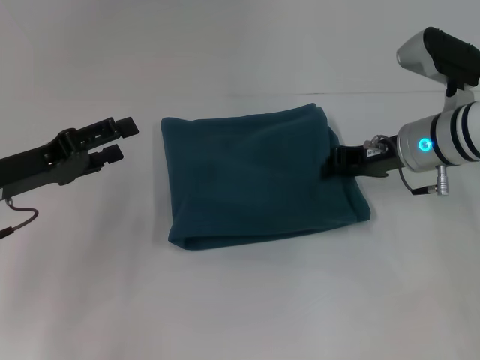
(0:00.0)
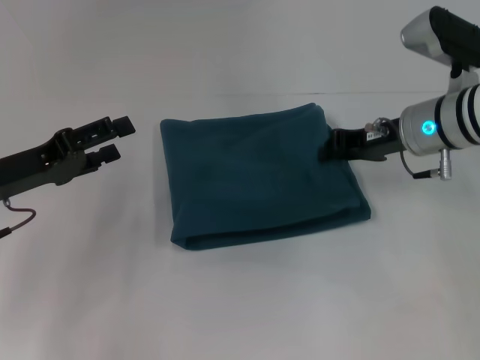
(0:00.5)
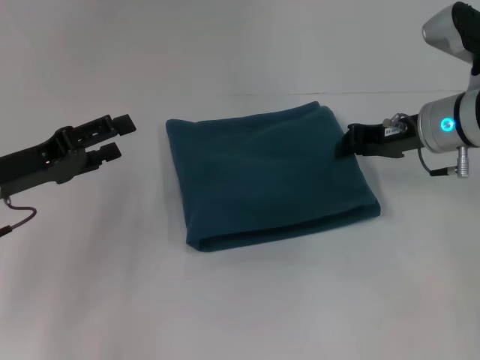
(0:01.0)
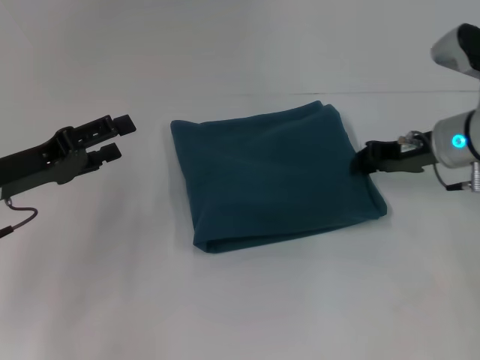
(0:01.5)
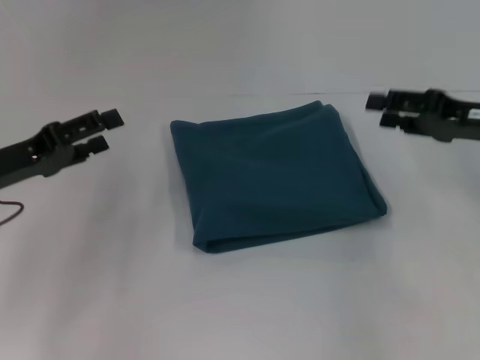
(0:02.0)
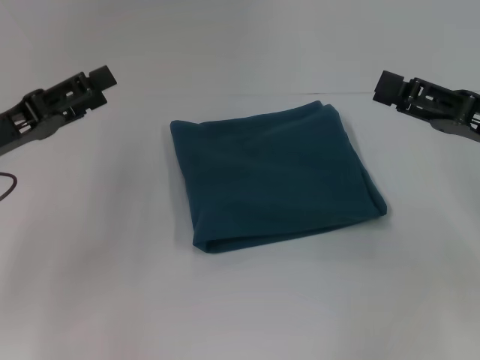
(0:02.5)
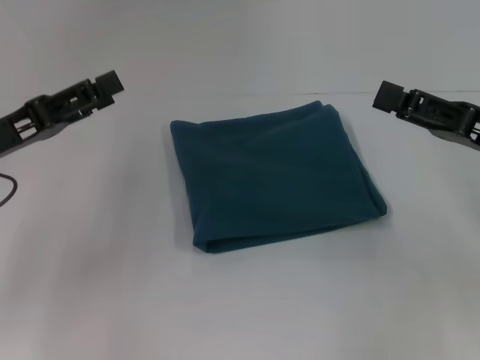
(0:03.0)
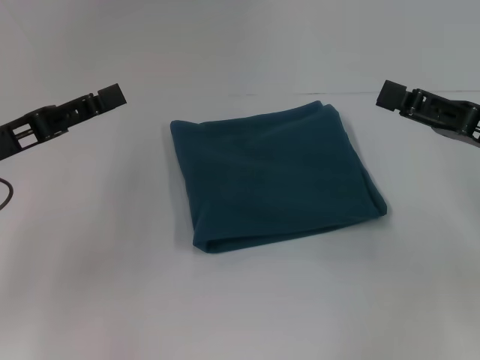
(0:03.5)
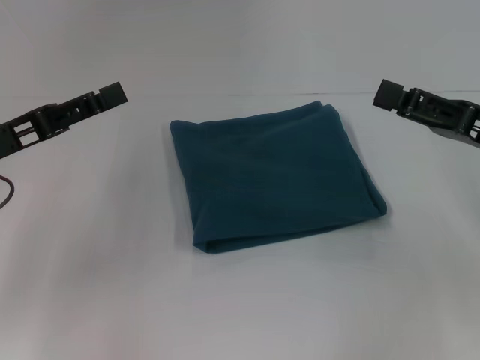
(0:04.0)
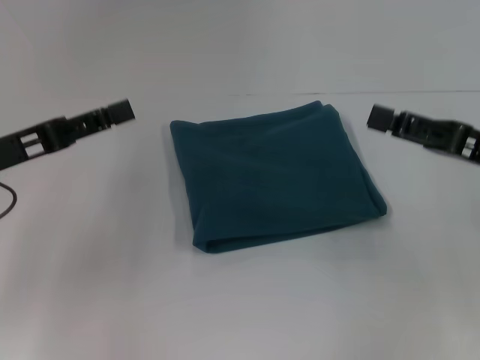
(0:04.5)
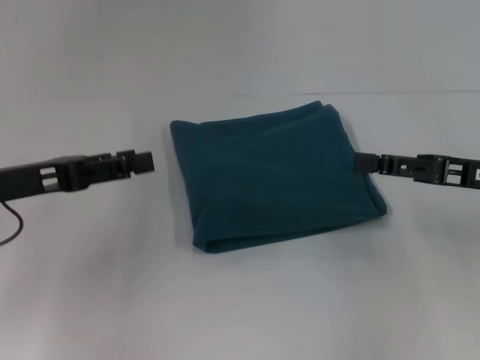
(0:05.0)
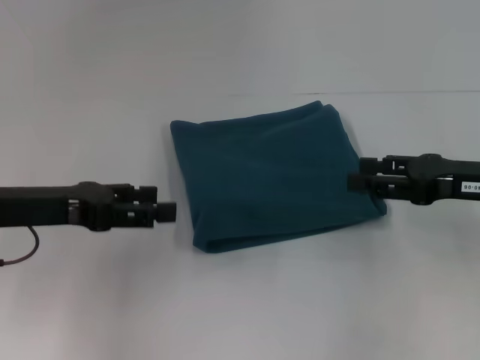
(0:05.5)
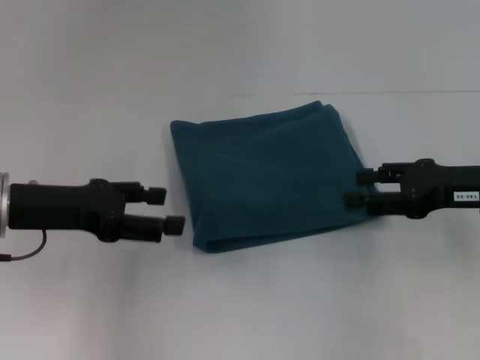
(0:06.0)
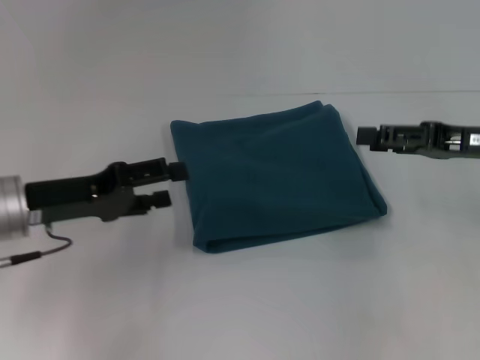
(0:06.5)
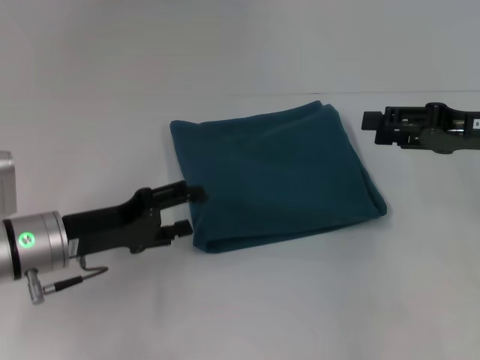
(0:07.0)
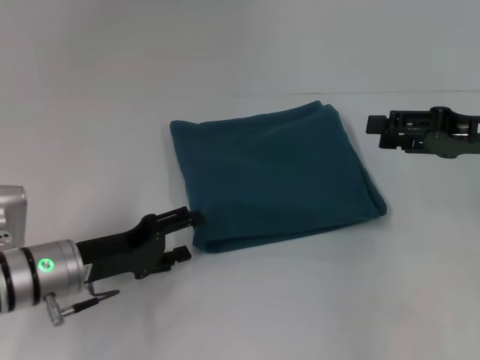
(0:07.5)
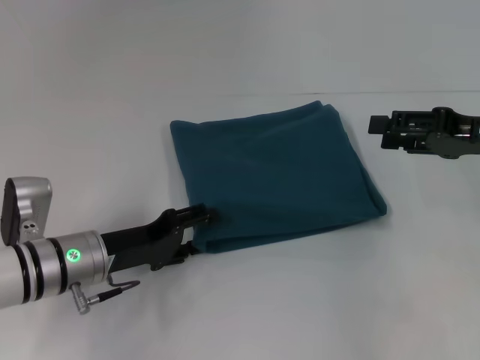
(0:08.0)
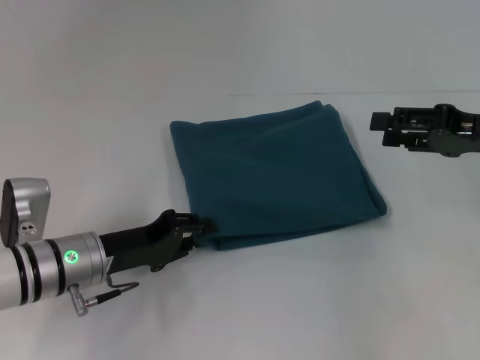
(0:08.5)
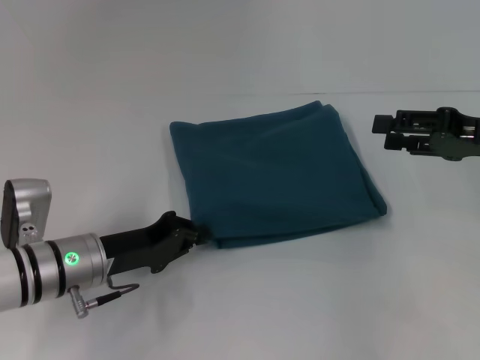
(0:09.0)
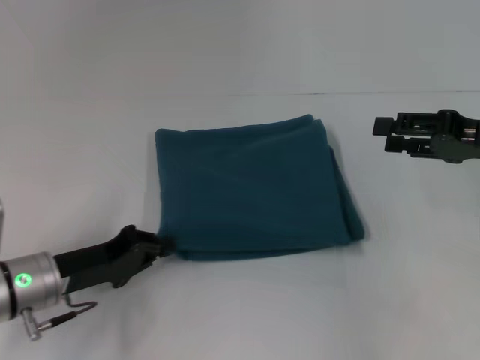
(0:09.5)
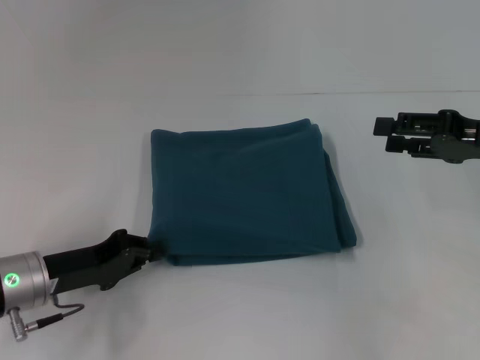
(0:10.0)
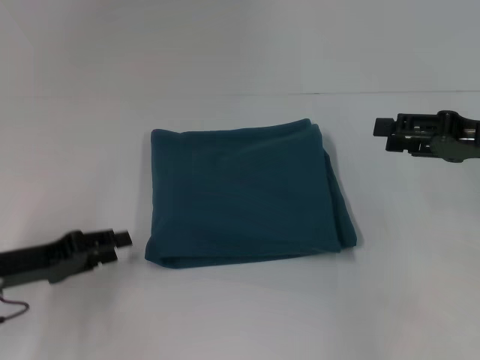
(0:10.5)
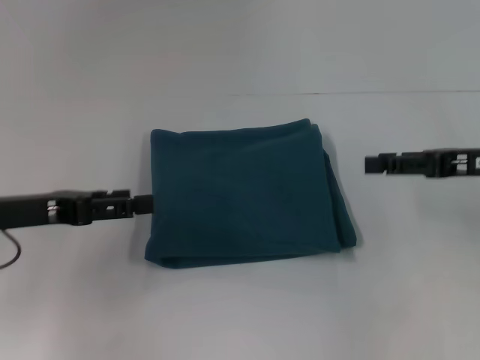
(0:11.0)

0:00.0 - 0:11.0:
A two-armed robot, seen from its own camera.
0:00.0 - 0:02.0: The right gripper moves to the right and backward, some 10 cm.
0:02.0 - 0:03.5: The right gripper moves backward, some 5 cm.
0:05.5 - 0:07.5: The left gripper is displaced downward by some 10 cm.
0:07.5 - 0:09.0: The left gripper closes up.
0:09.0 - 0:11.0: The left gripper travels upward and to the left by some 15 cm, and opens.

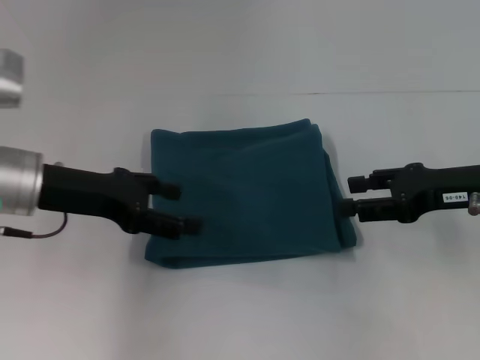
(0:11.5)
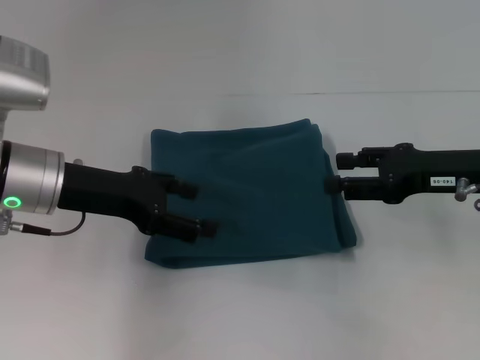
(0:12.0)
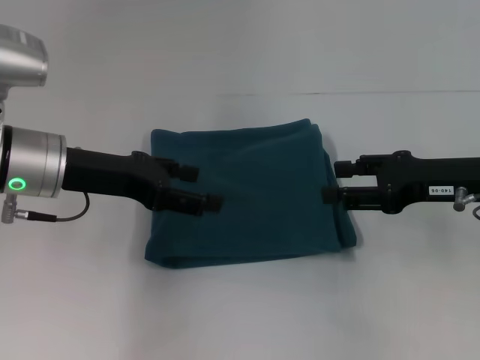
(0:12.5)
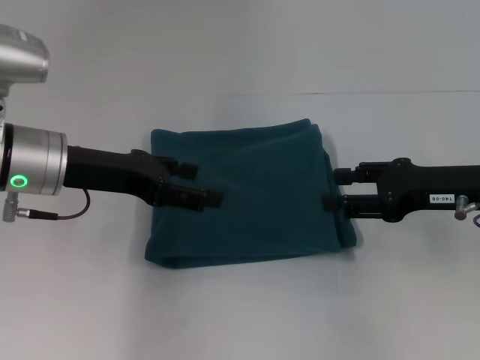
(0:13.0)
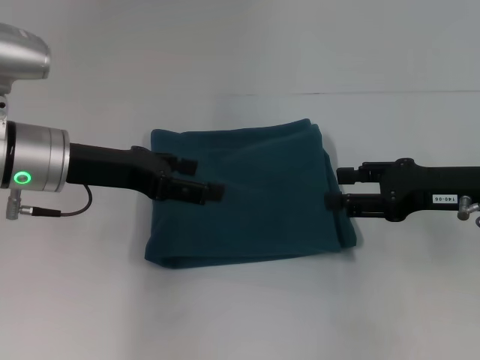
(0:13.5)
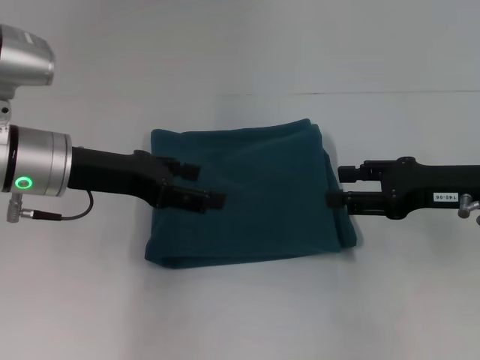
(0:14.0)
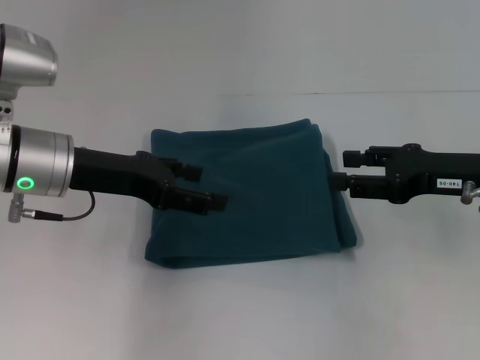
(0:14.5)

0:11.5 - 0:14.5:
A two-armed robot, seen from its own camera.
0:11.5 - 0:13.0: There are only small adjustments of the grippers.
0:13.0 - 0:14.5: Both grippers stay put.
